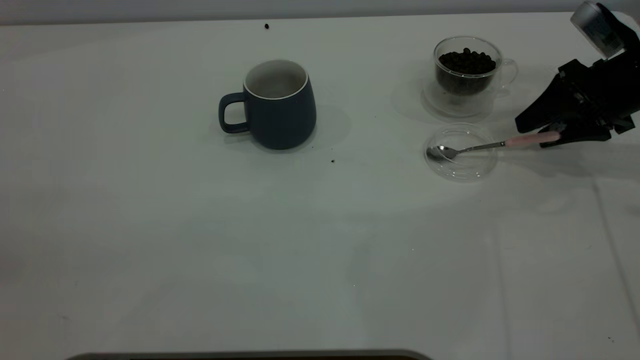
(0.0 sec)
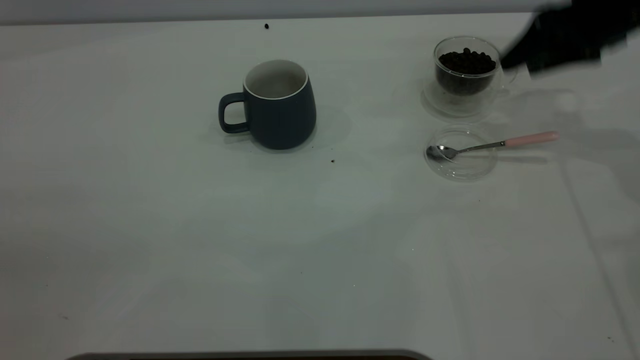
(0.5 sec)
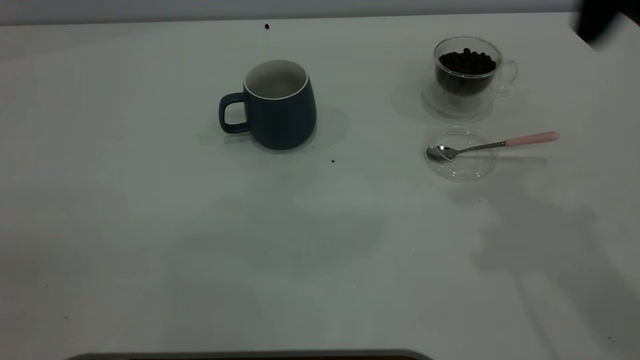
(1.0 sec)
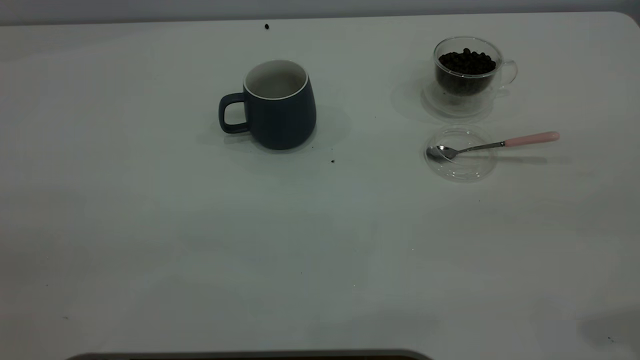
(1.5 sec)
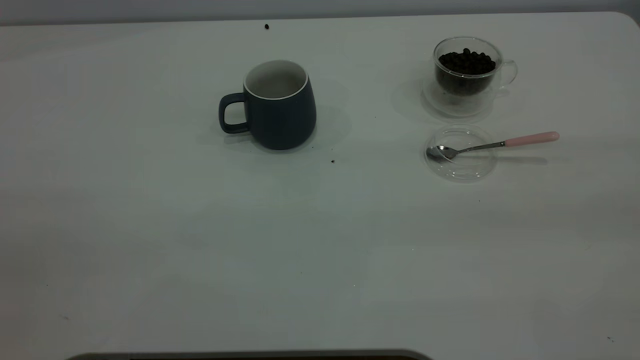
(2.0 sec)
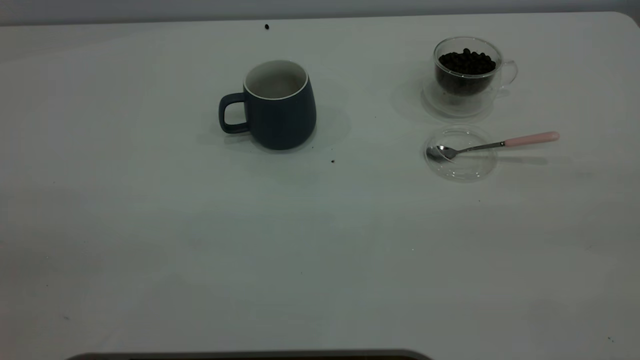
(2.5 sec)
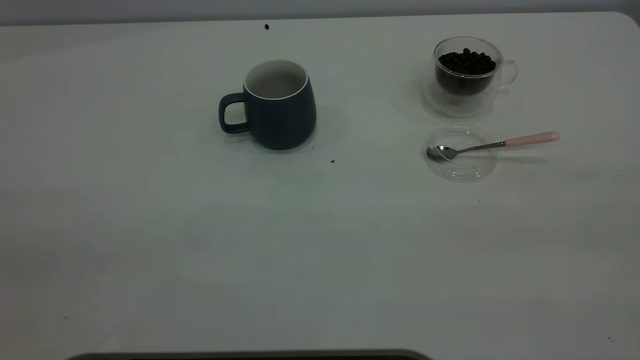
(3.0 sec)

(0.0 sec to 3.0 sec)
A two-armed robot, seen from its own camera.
Task of the whole recording: the left gripper place the grey cup in the center of the table, the right gripper take the pink spoon from the cup lid and scoop out the coffee beans from the coffee cup and put them into the grey cup, the right gripper put the spoon back into the cup lid.
0.0 sec - 1.5 sec: The right gripper travels backward and upward by approximately 35 cm.

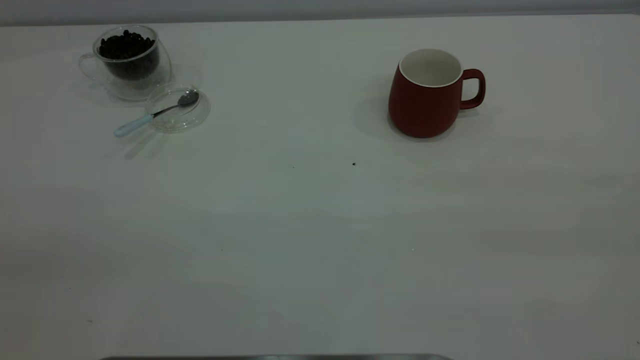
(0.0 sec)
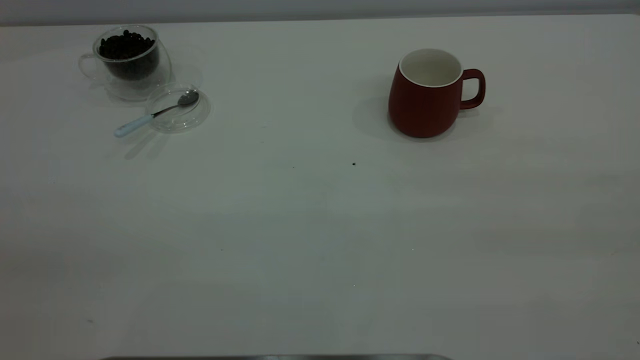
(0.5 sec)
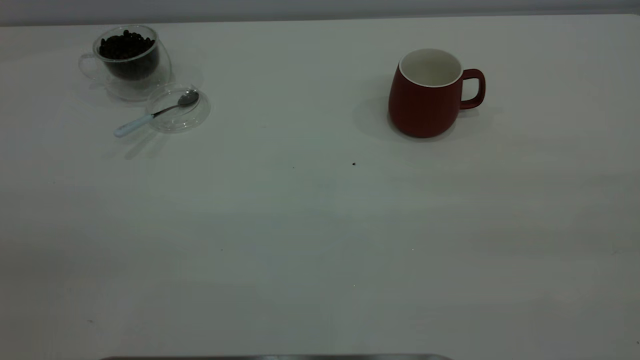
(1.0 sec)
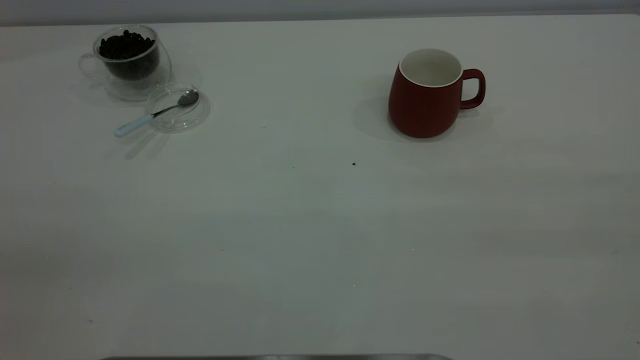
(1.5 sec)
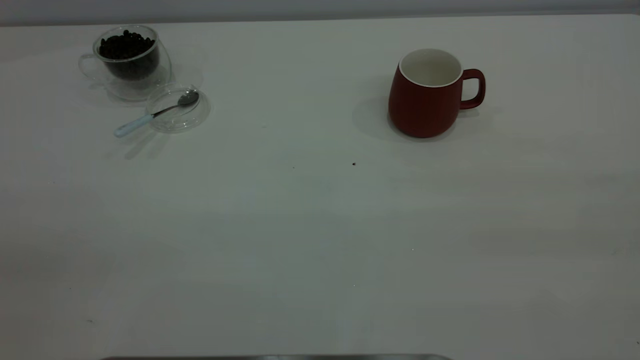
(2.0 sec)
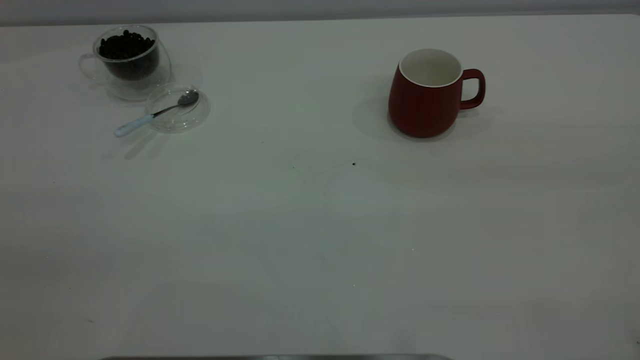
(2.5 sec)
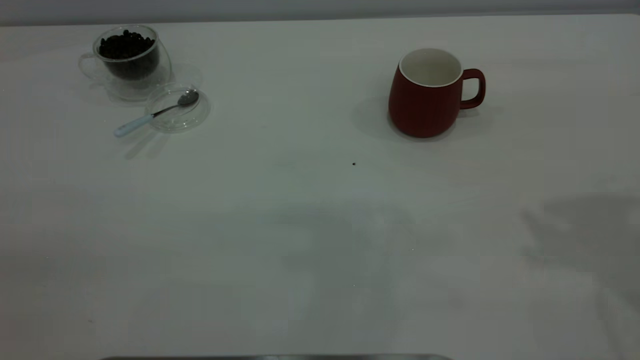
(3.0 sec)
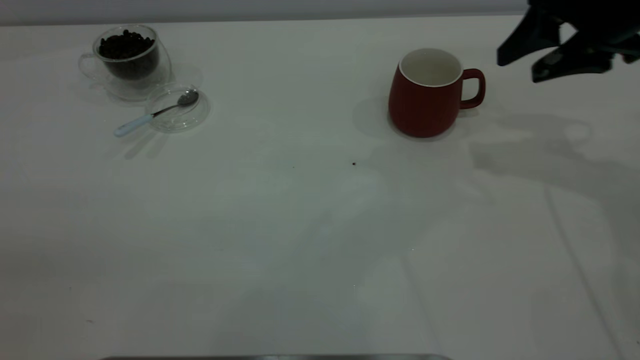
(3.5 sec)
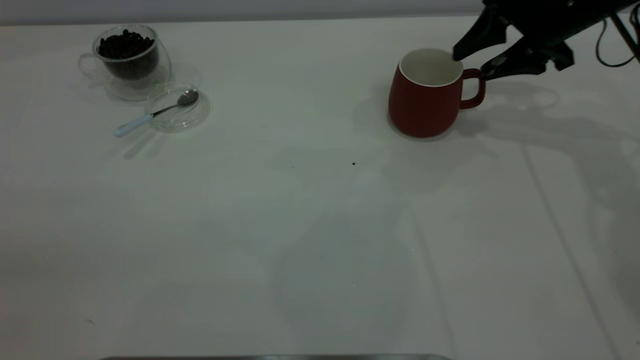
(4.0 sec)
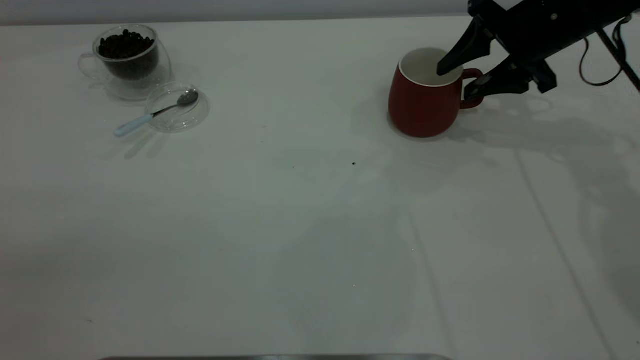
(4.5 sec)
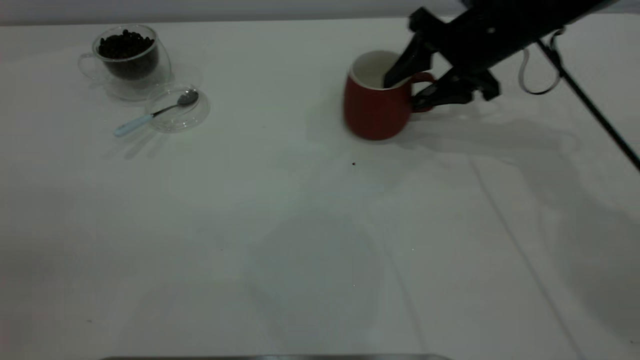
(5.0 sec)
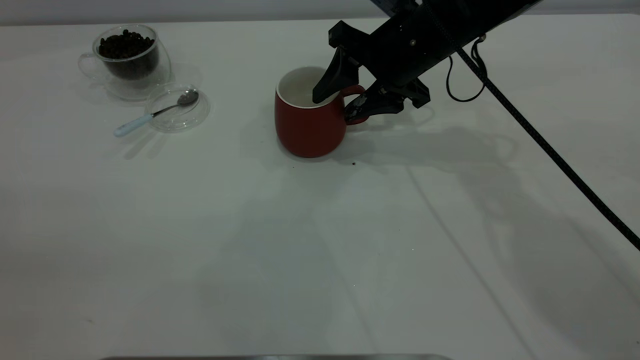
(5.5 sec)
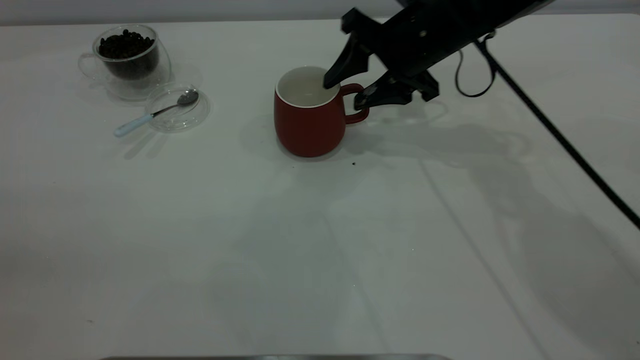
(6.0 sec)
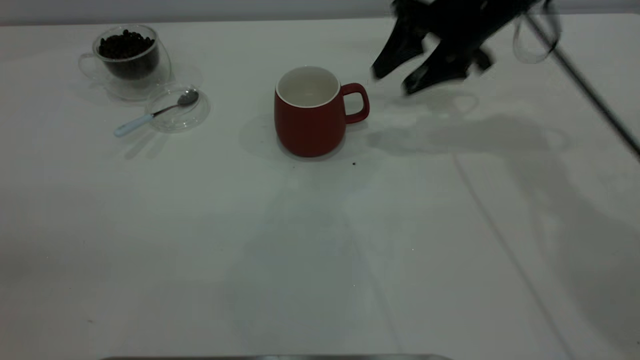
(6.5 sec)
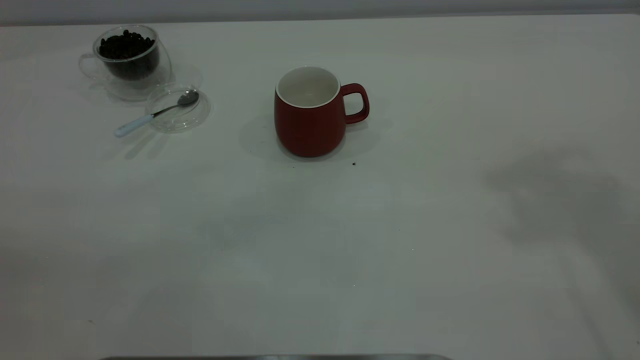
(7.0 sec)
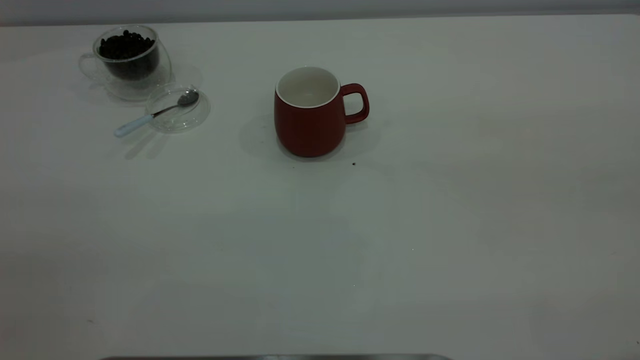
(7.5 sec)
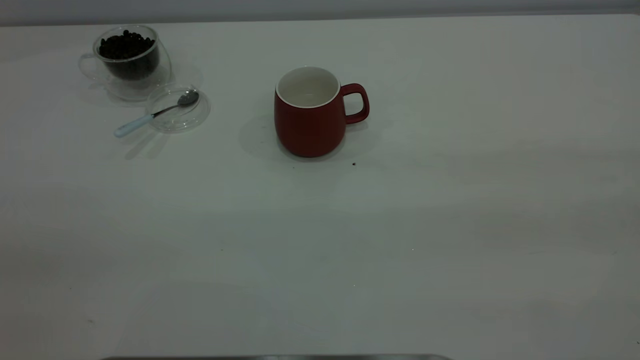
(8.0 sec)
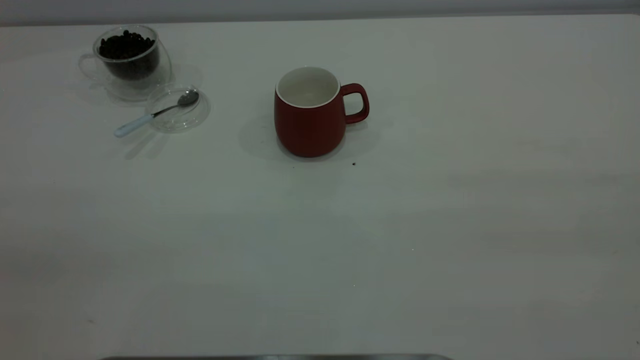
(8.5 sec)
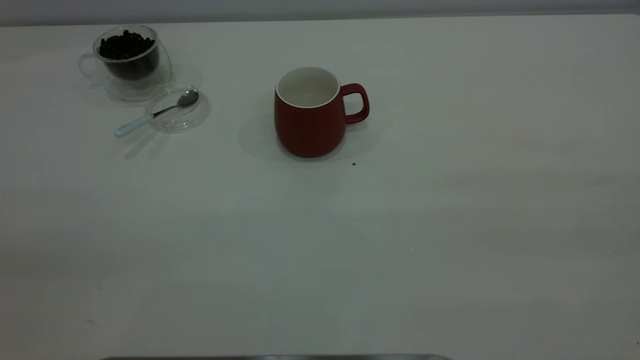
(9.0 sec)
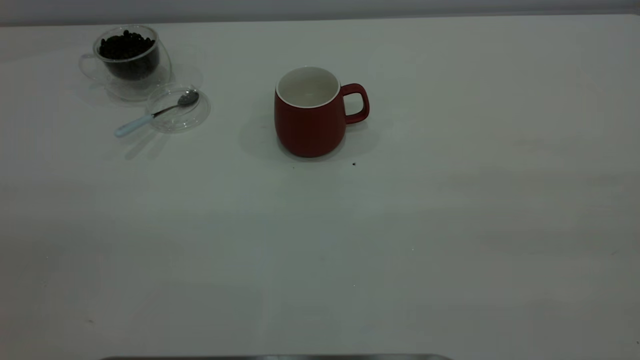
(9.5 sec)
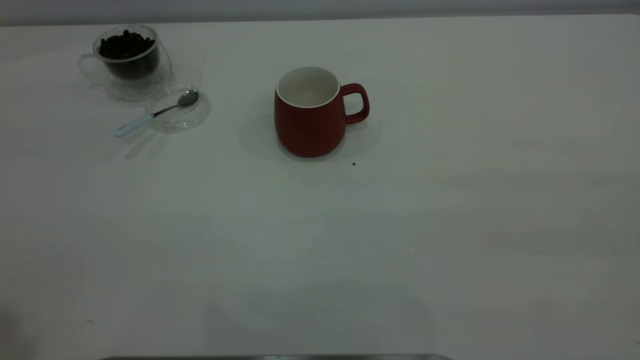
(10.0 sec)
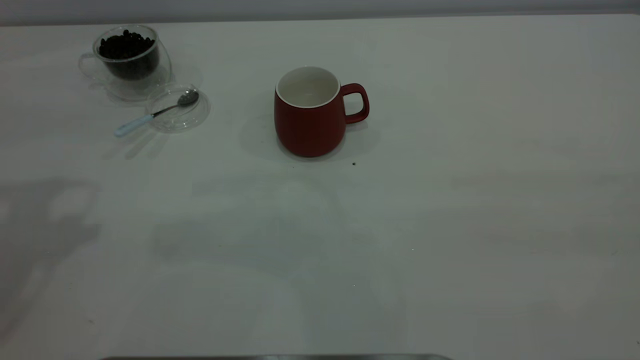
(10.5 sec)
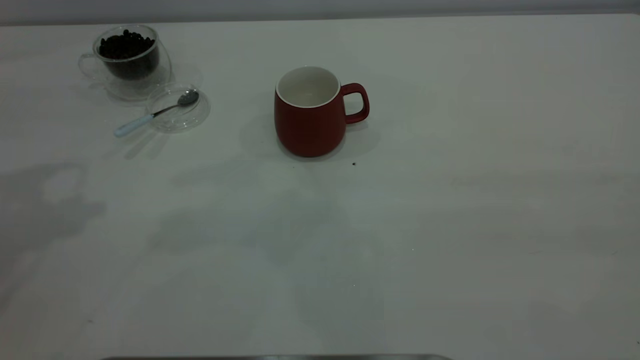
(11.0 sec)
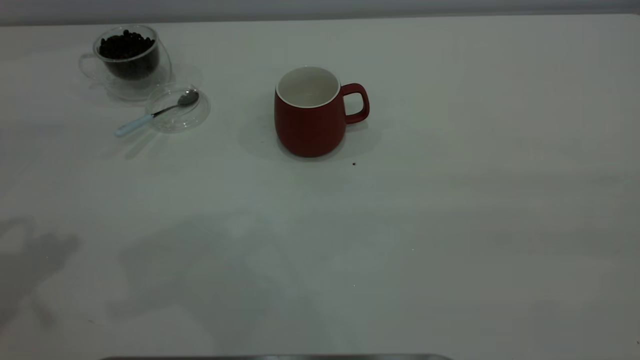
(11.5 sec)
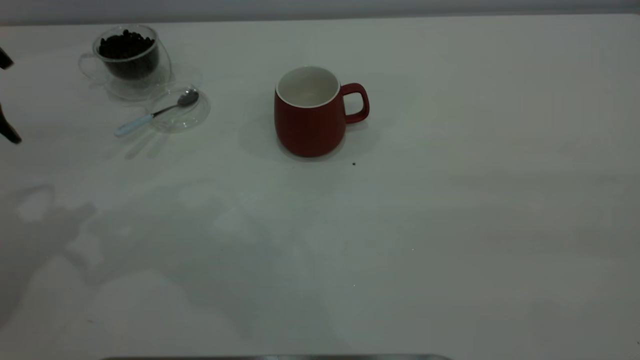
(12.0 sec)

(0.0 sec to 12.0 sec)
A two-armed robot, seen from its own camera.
Task of the whole recording: the right gripper place the red cup in the center of the table, the left gripper take the blue spoon from the cup lid and scoop out the coffee beans from the coffee cup and put them into the red cup, the left gripper put the spoon back into the cup lid.
Step, 0.0 sec - 6.0 sec: Move the cup to the center of view.
0.0 sec - 2.0 sec: Both grippers stay put.
2.0 sec - 4.0 sec: The right gripper moves forward and downward, roughly 50 cm, and opens.
4.0 sec - 6.0 sec: The right gripper moves to the left, some 15 cm.
6.0 sec - 8.0 sec: The right gripper is displaced backward, upward and to the right by about 50 cm.

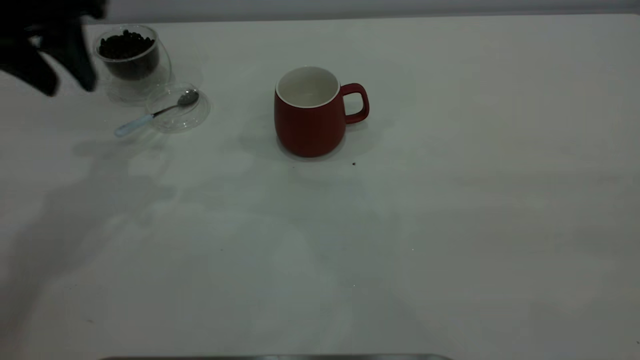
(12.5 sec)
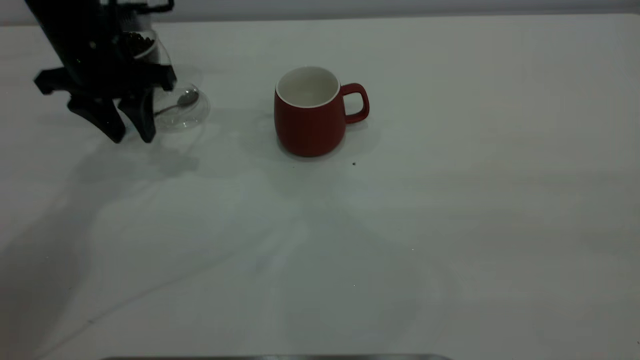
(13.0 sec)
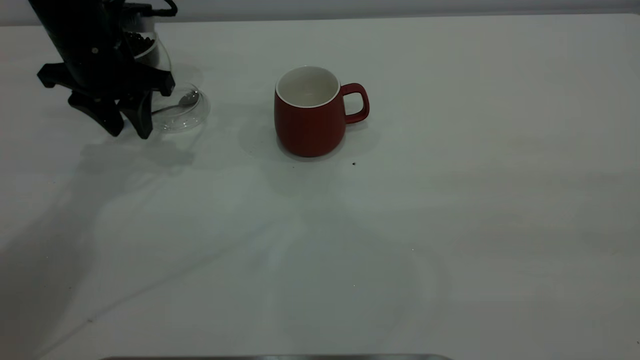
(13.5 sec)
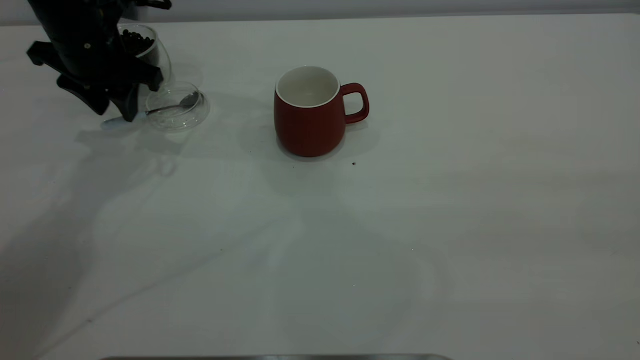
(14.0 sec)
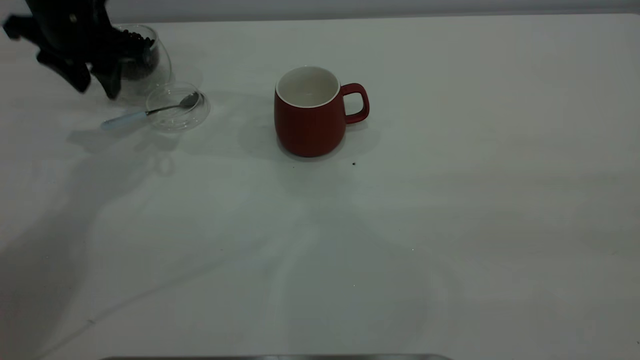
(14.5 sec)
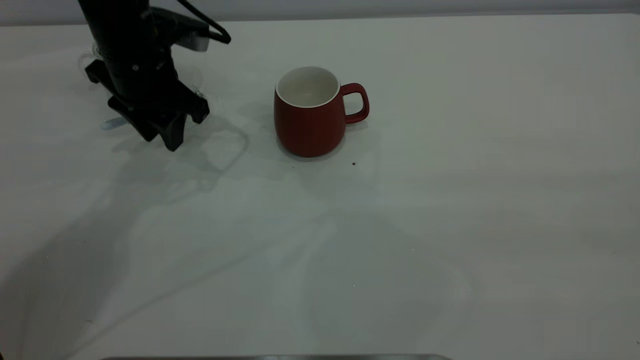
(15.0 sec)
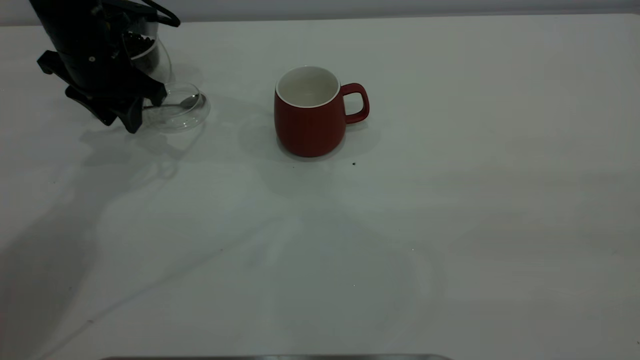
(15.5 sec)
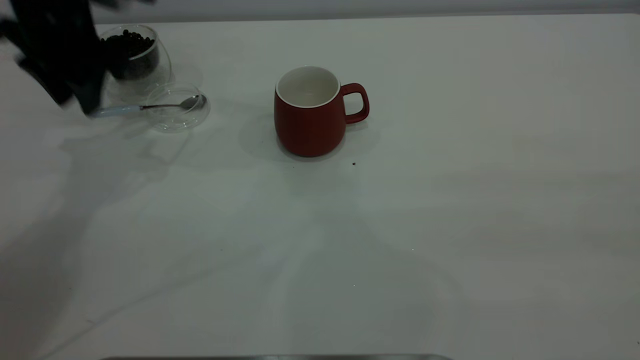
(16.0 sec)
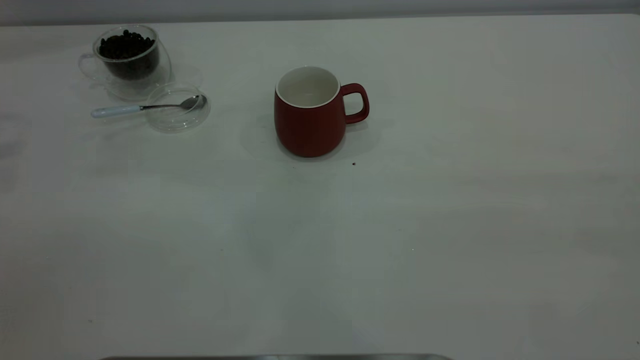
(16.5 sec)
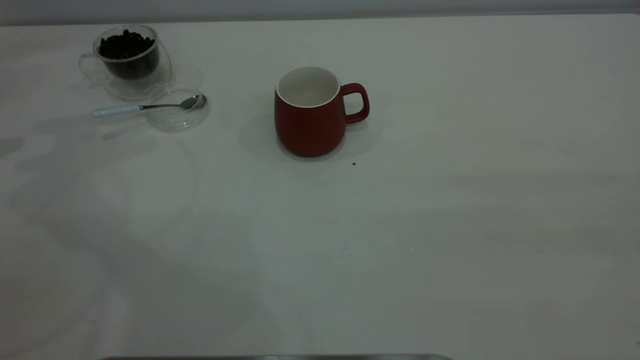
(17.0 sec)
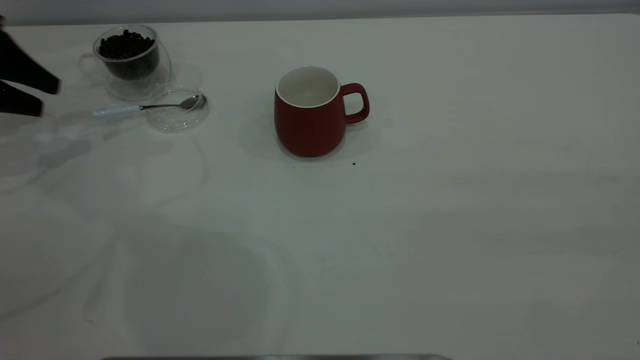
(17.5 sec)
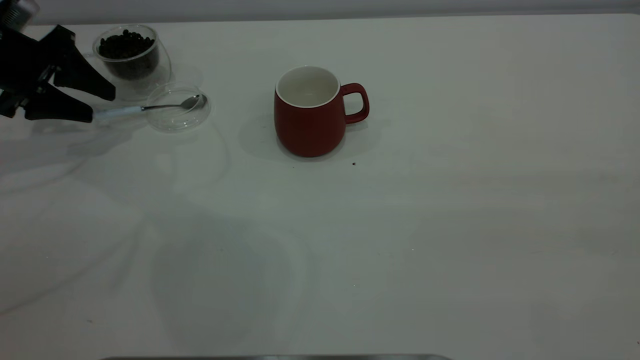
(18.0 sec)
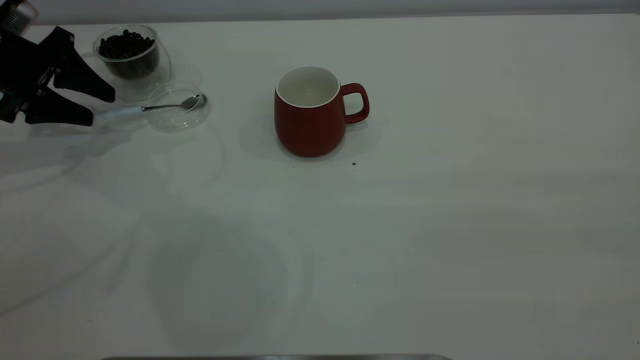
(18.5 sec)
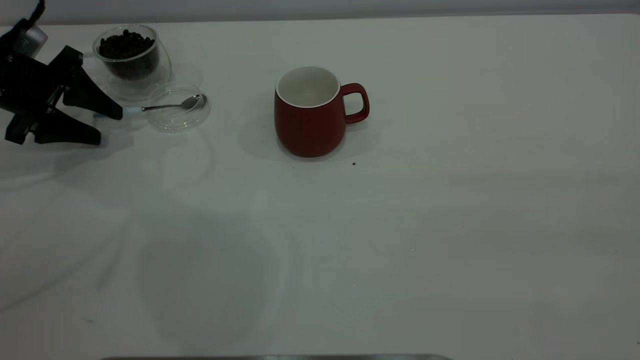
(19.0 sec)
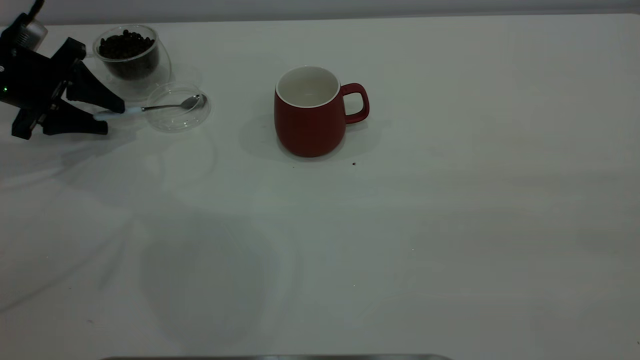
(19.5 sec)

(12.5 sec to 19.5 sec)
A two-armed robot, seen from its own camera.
Task of the whole recording: the right gripper place the red cup in the center of the table, the left gripper take the blue spoon from the cup lid and scoop out the coffee beans from the coffee cup and put them into the red cup, the left gripper put the spoon back into the cup lid.
12.5 sec - 14.5 sec: The left gripper goes about 10 cm forward and downward.
16.0 sec - 17.5 sec: The left gripper heads to the left, covering roughly 15 cm, and travels upward and back again, approximately 15 cm each way.
17.5 sec - 19.5 sec: The left gripper changes place by approximately 5 cm.
